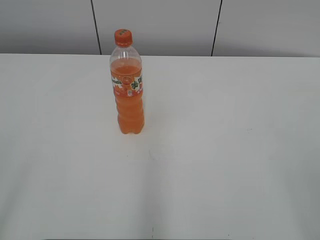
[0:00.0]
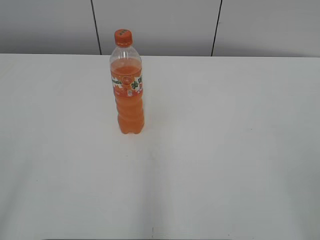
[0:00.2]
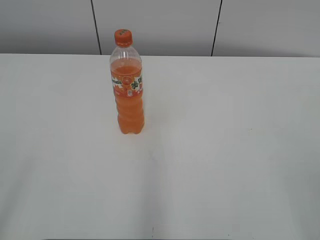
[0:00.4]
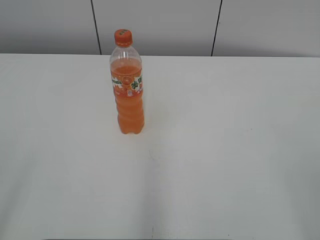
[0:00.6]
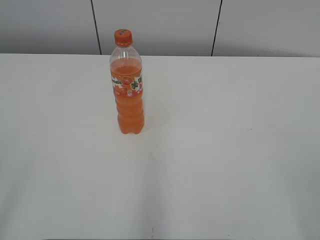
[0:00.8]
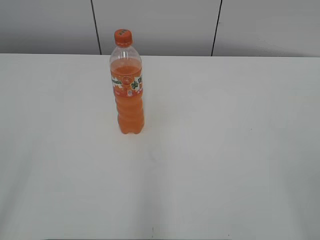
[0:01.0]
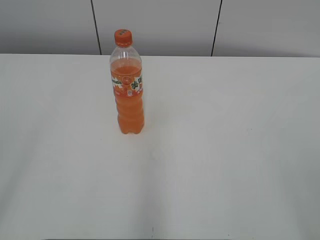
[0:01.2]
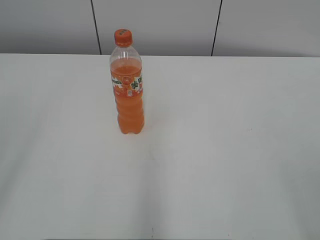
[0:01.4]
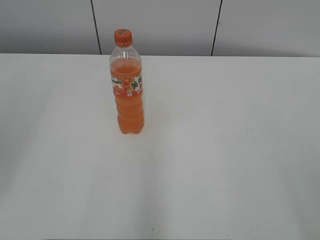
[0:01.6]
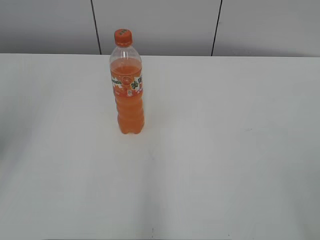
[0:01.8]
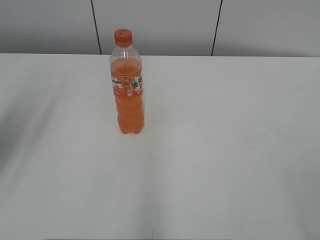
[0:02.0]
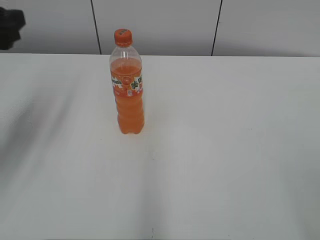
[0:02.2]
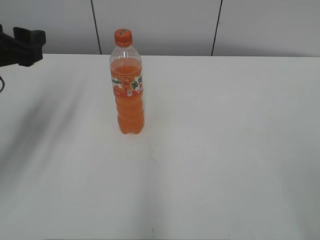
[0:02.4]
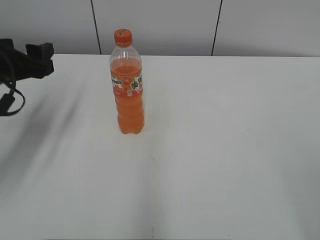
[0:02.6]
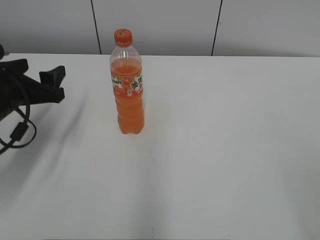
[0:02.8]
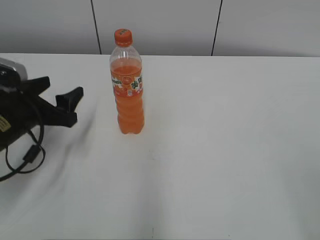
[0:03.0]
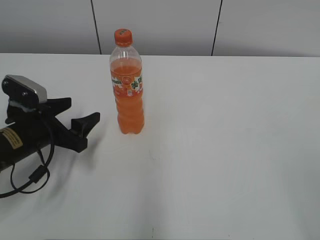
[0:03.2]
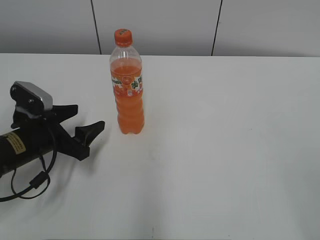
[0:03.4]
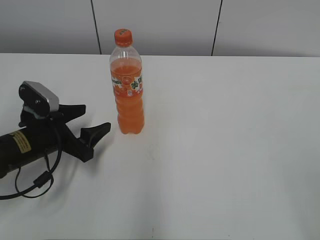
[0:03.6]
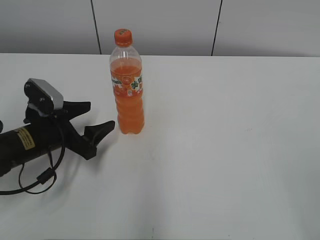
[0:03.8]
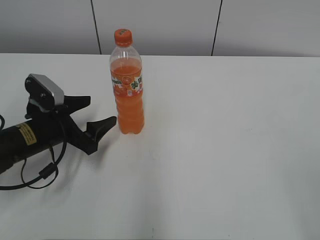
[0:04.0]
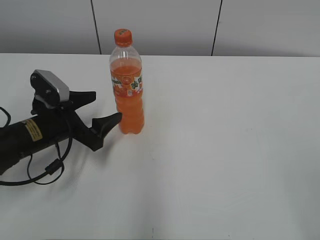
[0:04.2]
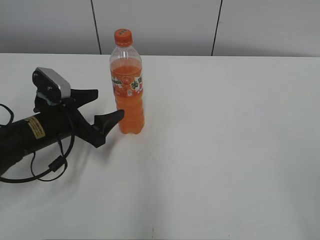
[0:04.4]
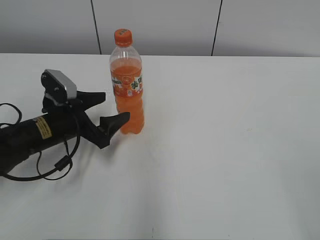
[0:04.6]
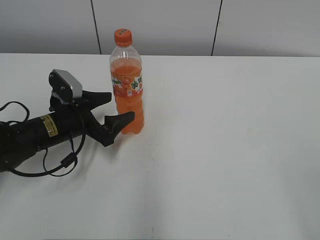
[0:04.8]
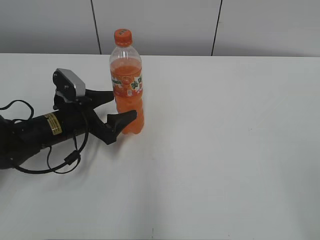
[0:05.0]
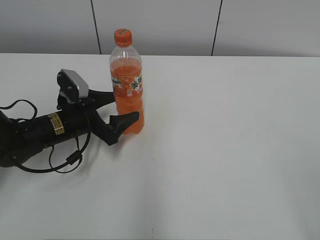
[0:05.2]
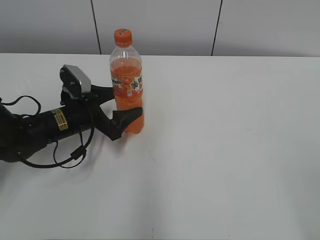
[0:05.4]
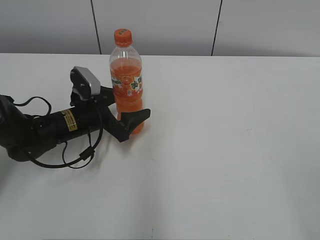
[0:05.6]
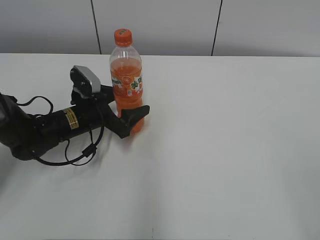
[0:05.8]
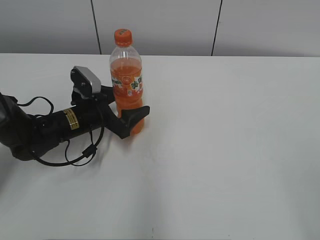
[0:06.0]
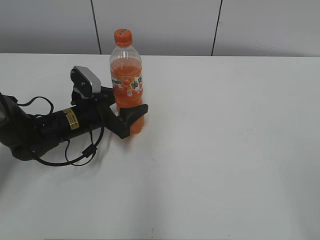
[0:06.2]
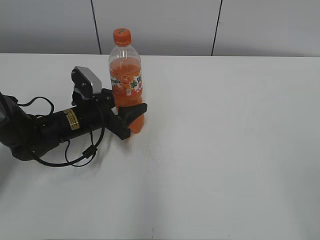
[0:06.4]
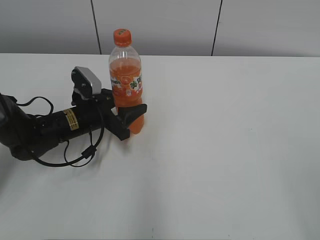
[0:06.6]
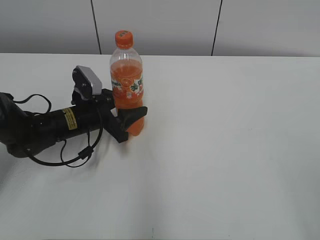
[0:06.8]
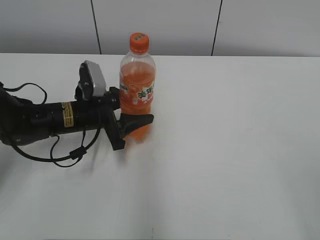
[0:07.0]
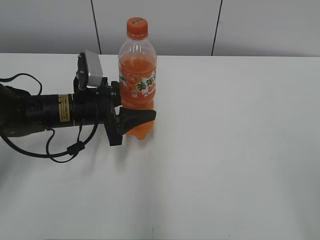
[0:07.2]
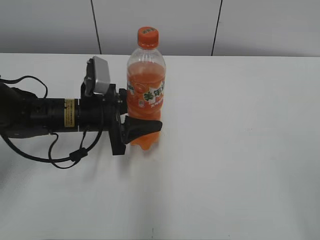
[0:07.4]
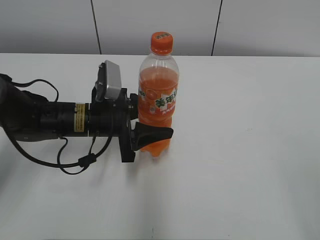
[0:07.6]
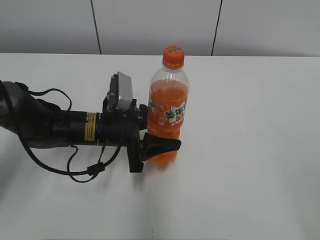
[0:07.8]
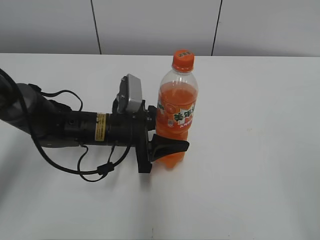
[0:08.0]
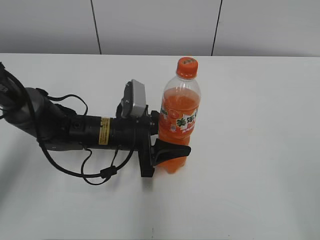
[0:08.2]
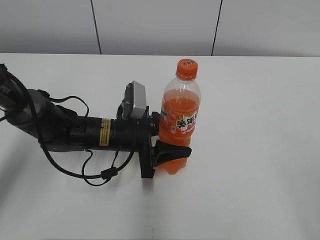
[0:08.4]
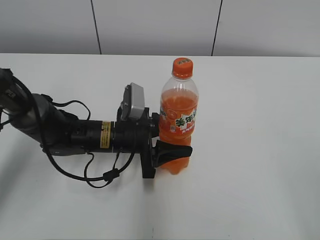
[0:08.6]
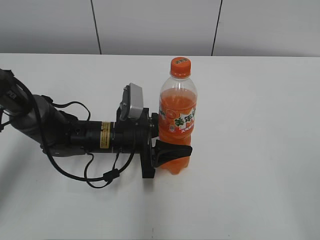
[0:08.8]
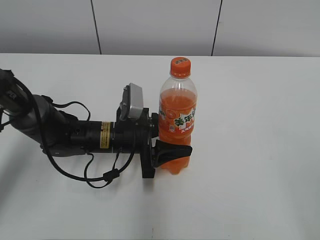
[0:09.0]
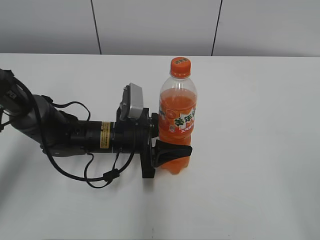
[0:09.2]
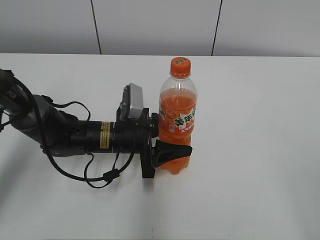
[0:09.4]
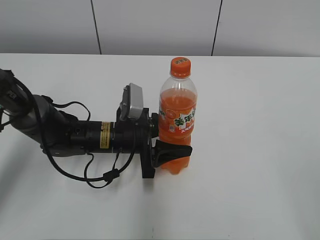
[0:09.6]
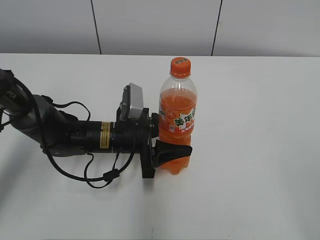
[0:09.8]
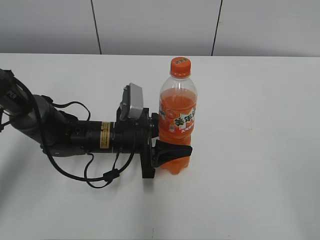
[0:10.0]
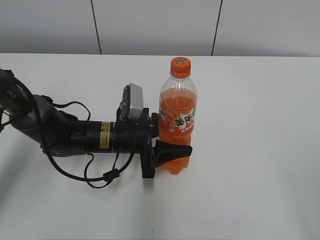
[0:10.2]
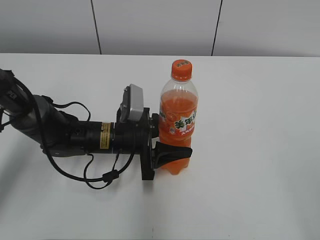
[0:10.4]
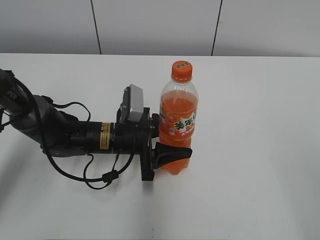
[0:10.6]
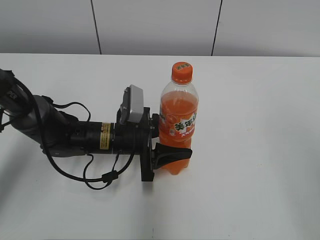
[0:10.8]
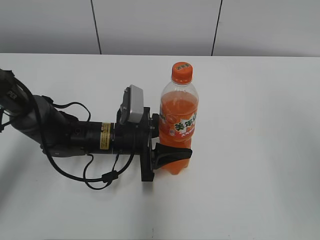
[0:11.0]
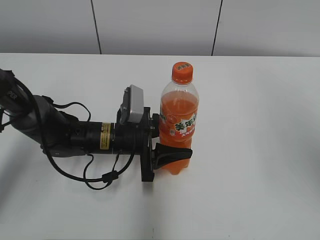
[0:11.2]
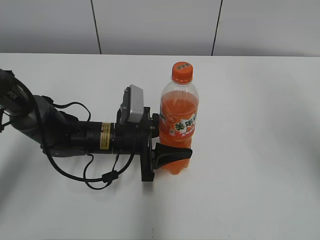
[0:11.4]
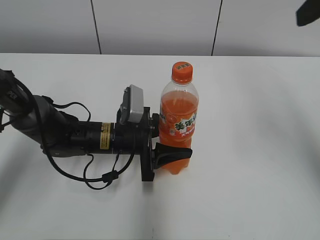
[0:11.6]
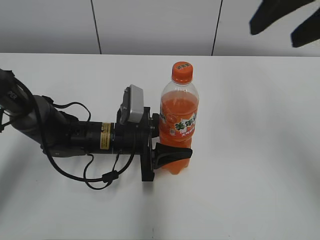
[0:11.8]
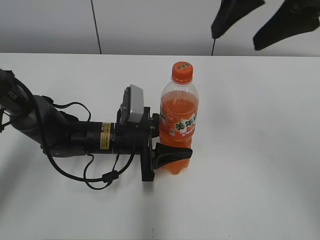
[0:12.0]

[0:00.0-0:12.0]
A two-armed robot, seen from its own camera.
Step, 0:00.0 to 0:06.6: Grab the Mirinda with the left hand.
Step, 0:06.8 to 0:08.6: Move the Mirinda from left to right.
0:01.6 to 0:03.0: The left gripper shifts some 30 cm downward and forward.
0:03.0 to 0:04.4: The left gripper moves some 5 cm.
0:04.4 to 0:06.0: The left gripper moves forward, about 5 cm.
0:06.0 to 0:07.6: The left gripper changes place by some 5 cm, and closes its fingers.
0:07.6 to 0:09.0: The left gripper ends up approximately 5 cm from where it was.
0:09.0 to 0:10.4: Both grippers stay about where they are.
0:10.4 to 0:12.0: The right gripper goes some 30 cm forward and to the left.

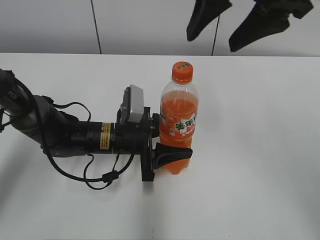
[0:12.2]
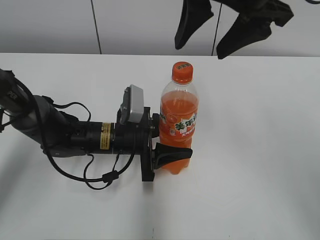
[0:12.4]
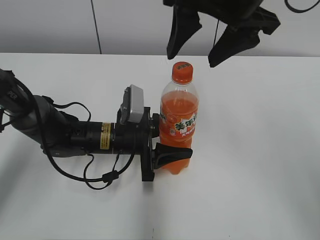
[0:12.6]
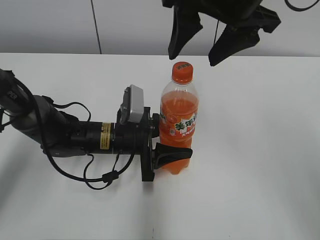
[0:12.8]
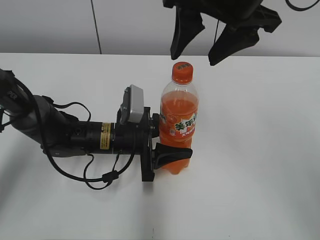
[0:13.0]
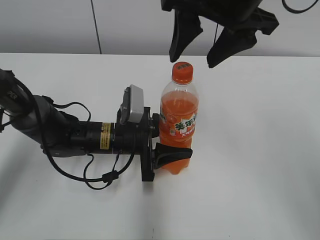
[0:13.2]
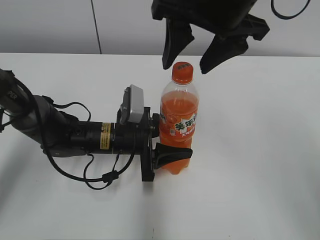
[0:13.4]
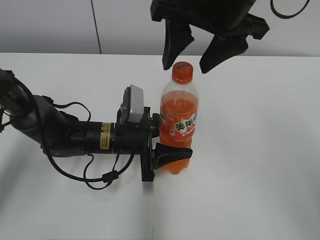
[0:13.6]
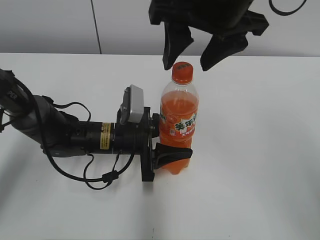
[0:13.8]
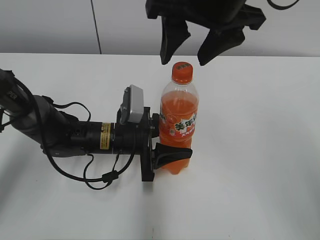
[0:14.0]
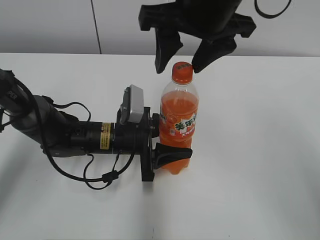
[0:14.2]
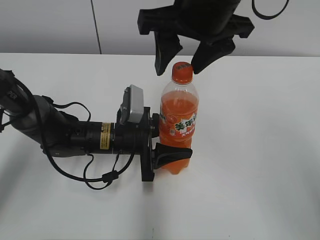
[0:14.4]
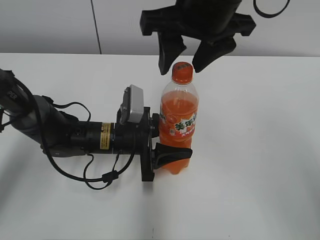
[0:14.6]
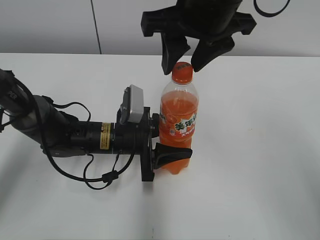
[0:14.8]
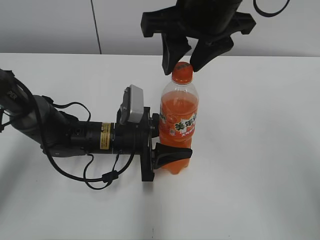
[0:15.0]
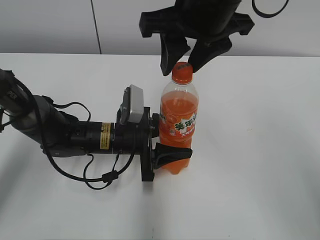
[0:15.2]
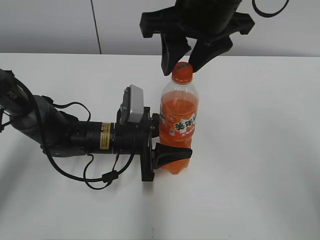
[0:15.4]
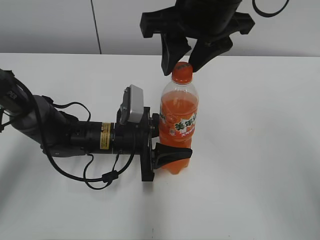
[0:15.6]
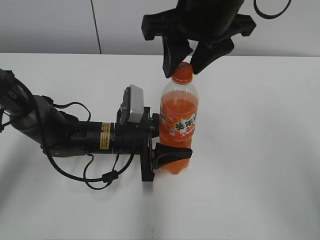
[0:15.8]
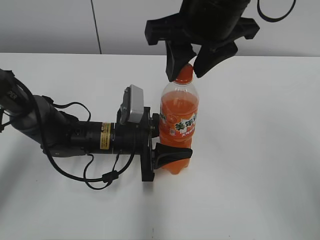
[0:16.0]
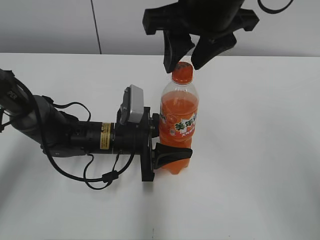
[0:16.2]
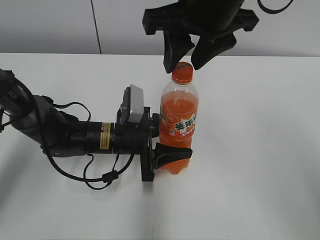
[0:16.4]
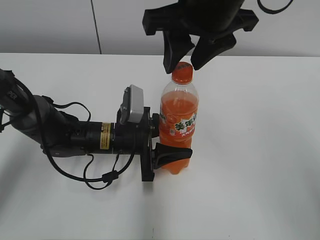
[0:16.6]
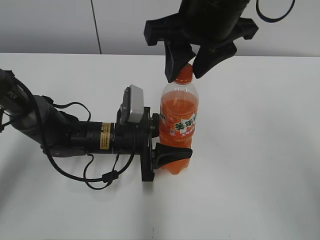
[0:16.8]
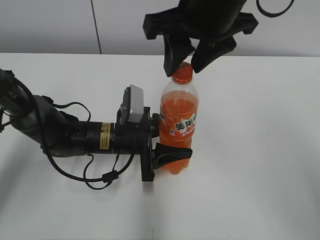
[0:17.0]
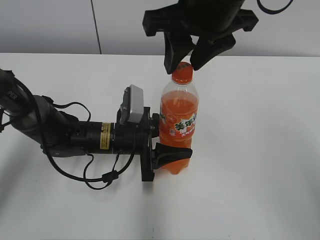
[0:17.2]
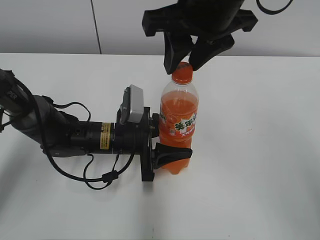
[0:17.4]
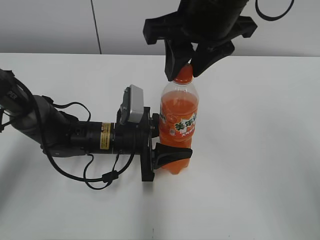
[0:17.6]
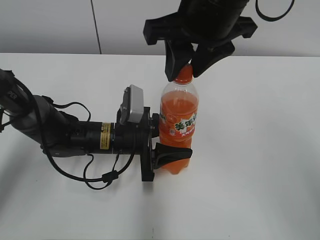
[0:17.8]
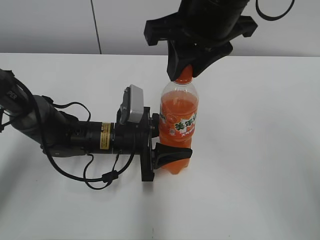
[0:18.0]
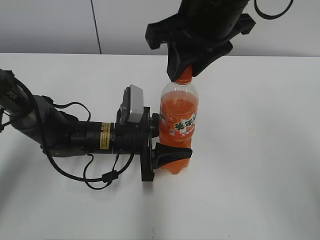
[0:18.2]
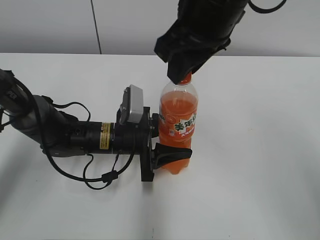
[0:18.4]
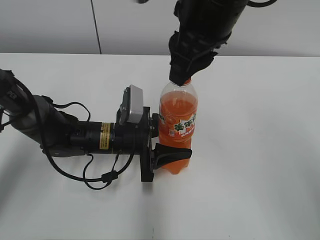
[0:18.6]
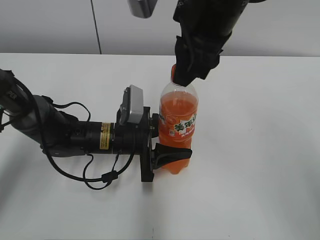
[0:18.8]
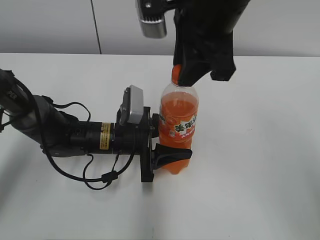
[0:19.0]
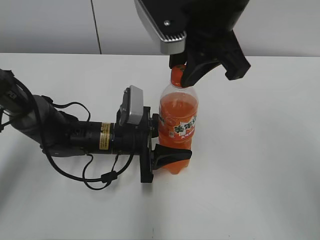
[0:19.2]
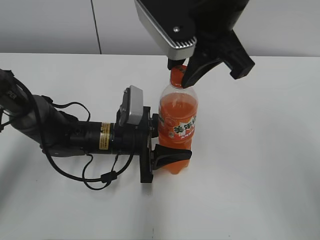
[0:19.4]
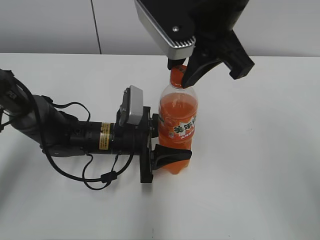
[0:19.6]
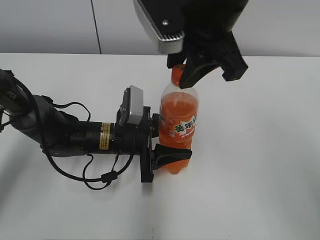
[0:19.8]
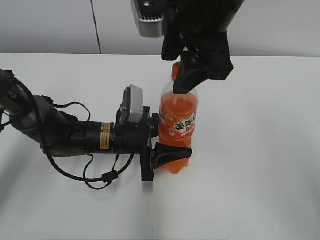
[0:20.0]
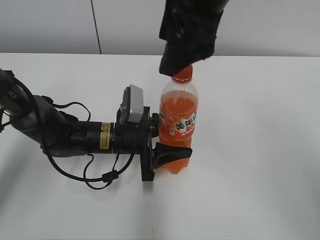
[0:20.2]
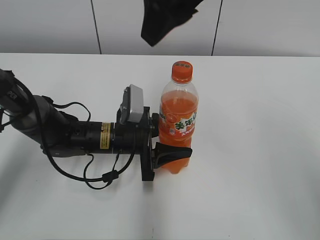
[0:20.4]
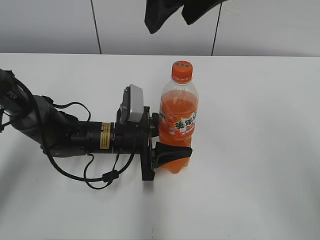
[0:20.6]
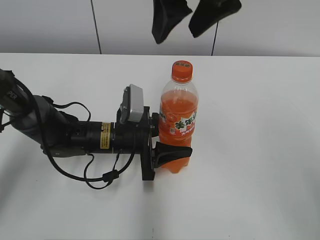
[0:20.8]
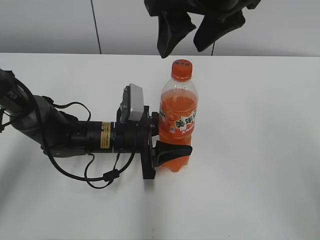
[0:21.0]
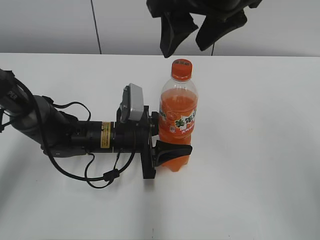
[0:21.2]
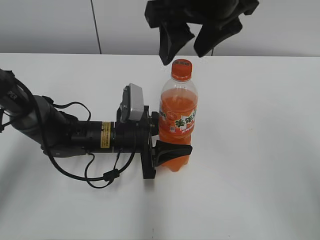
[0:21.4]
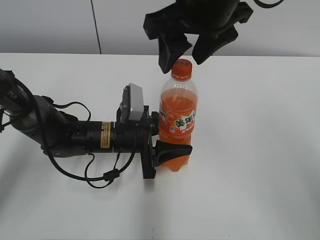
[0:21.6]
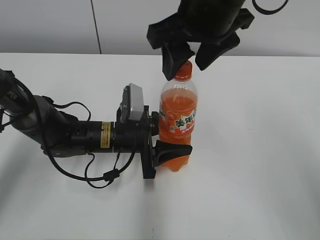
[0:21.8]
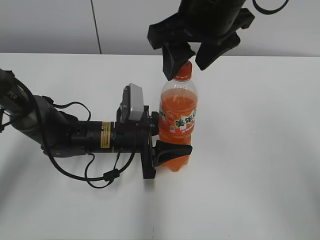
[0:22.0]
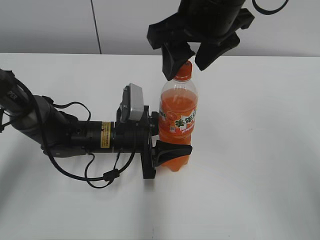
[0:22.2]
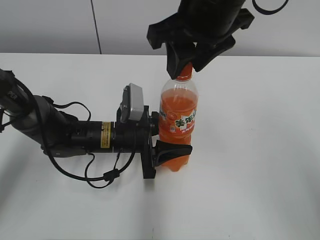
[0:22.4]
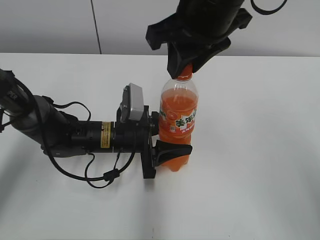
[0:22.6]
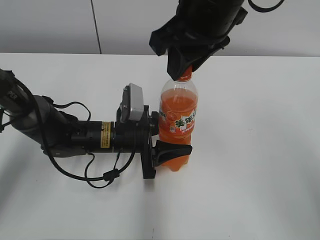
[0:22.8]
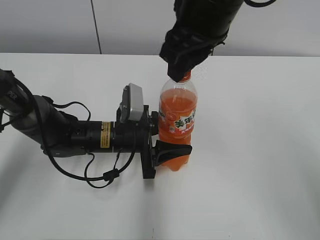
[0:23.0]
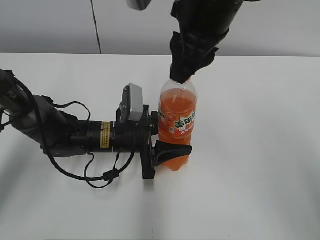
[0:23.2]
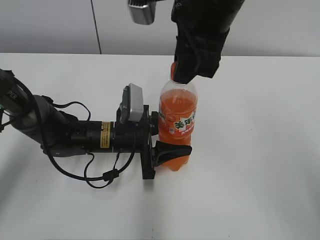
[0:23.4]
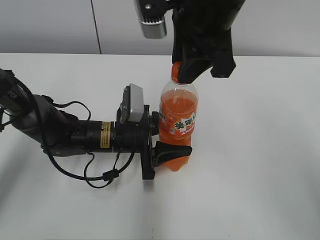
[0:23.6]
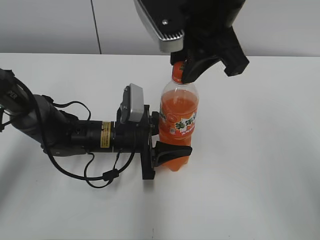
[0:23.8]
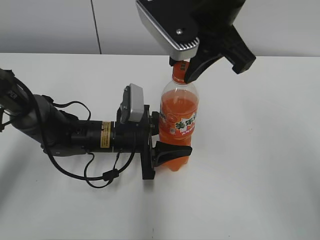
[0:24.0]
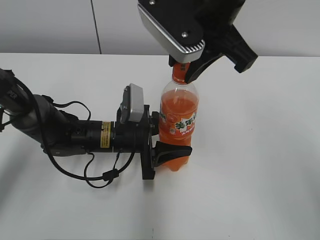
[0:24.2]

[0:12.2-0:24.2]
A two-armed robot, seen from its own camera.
0:12.2 to 0:13.8: The right gripper changes place by about 5 cm.
0:13.8 to 0:15.2: The right gripper closes its fingers.
0:15.2 to 0:16.6: The two grippers keep their place.
0:16.6 to 0:18.2: The right gripper closes its fingers.
0:19.8 to 0:21.2: The right gripper opens its fingers.
0:21.2 to 0:22.6: The right gripper closes its fingers.
